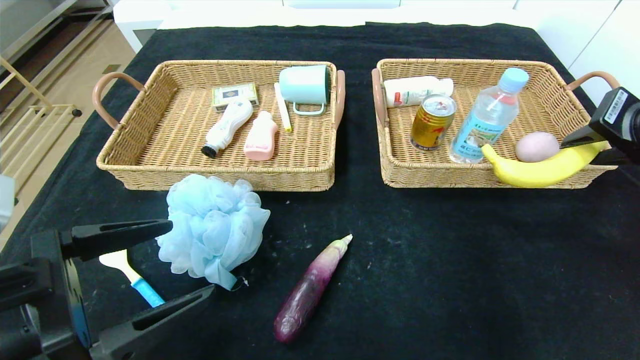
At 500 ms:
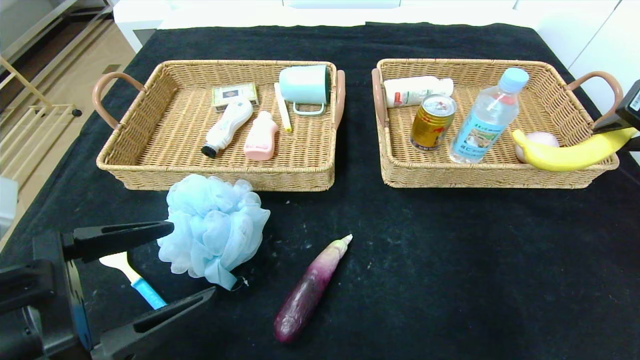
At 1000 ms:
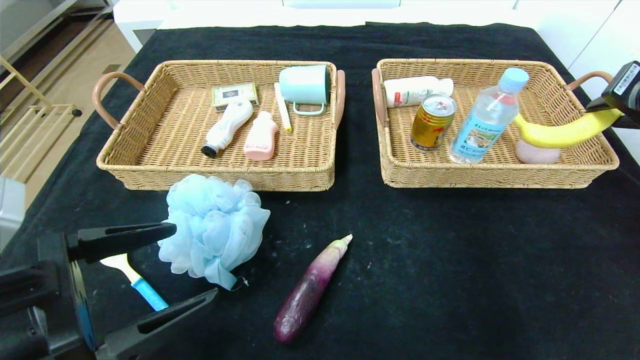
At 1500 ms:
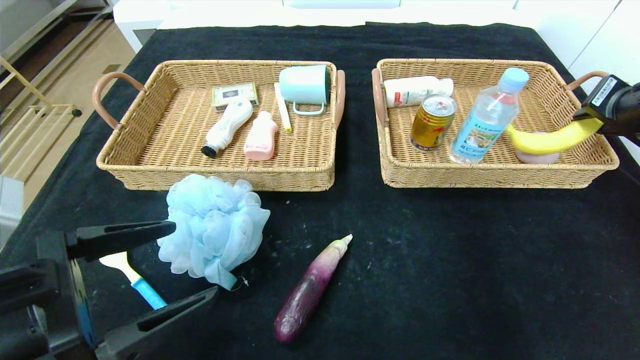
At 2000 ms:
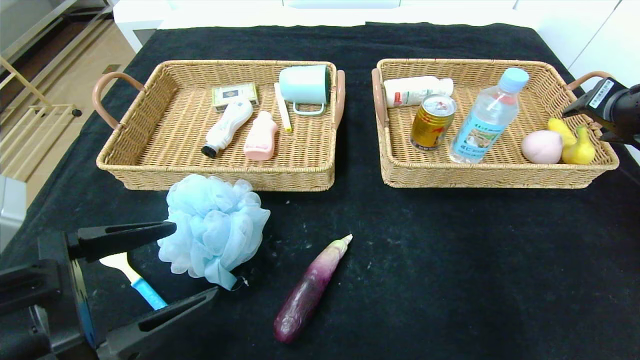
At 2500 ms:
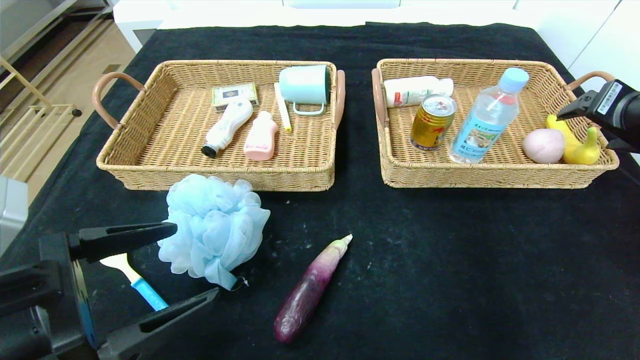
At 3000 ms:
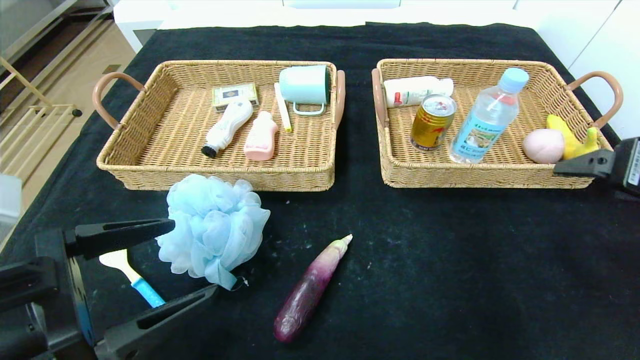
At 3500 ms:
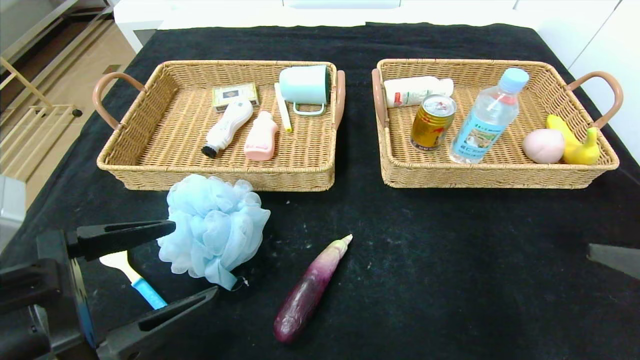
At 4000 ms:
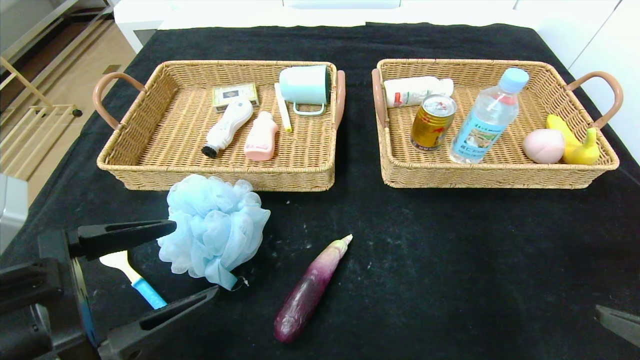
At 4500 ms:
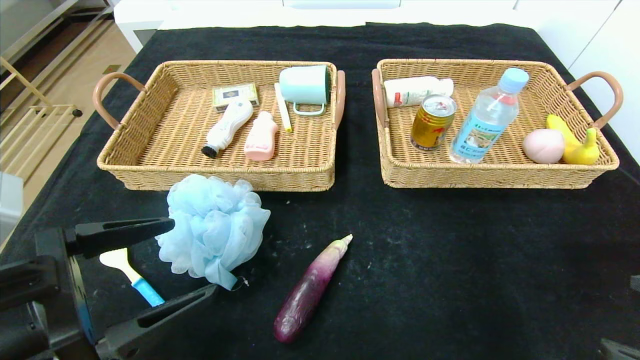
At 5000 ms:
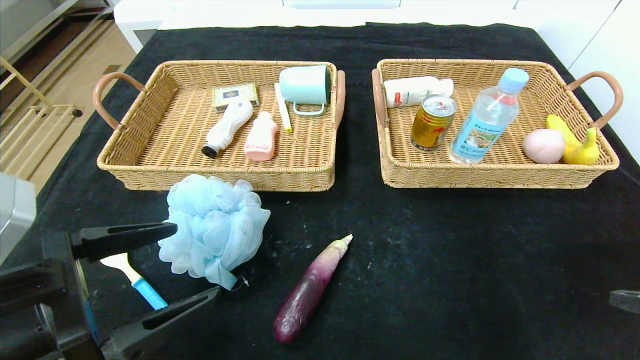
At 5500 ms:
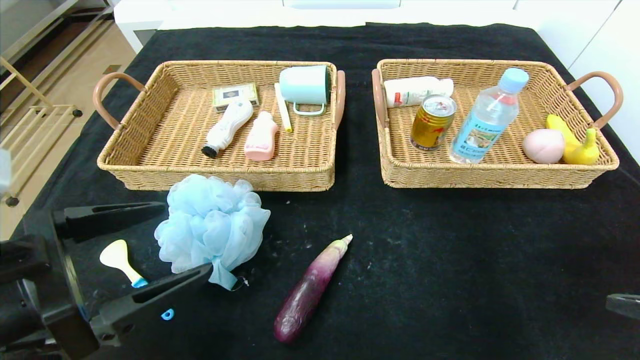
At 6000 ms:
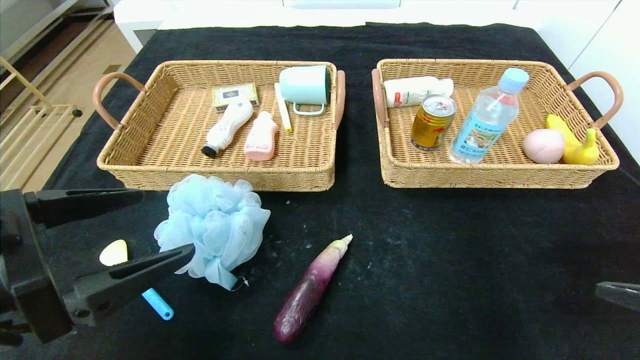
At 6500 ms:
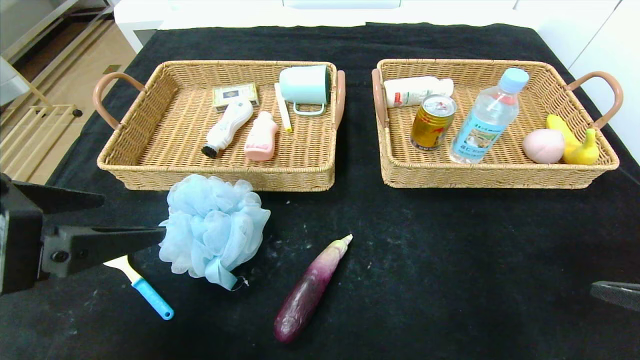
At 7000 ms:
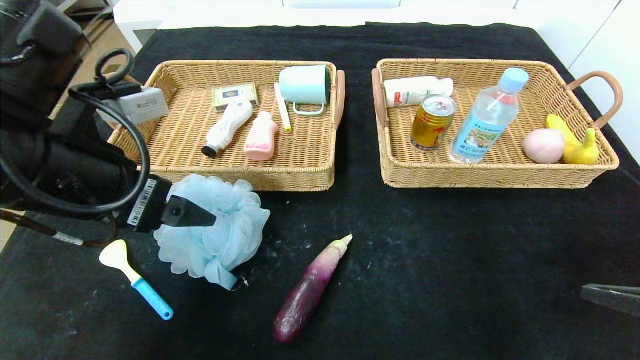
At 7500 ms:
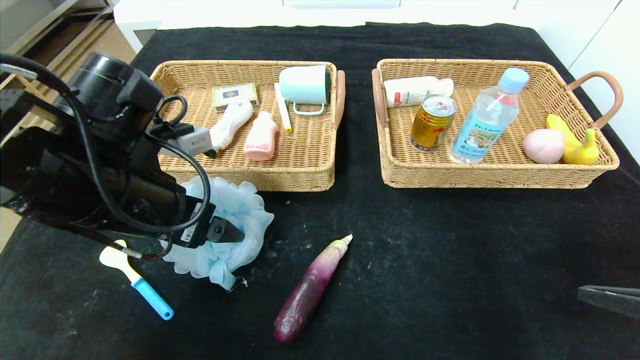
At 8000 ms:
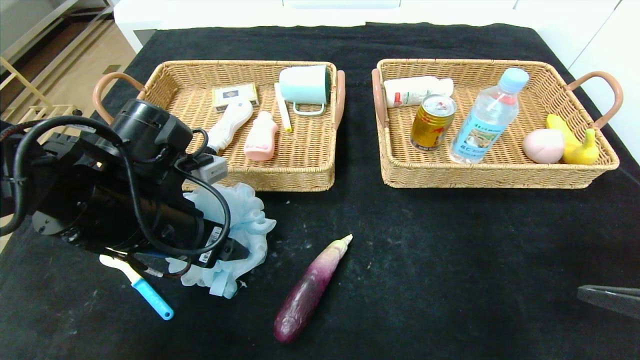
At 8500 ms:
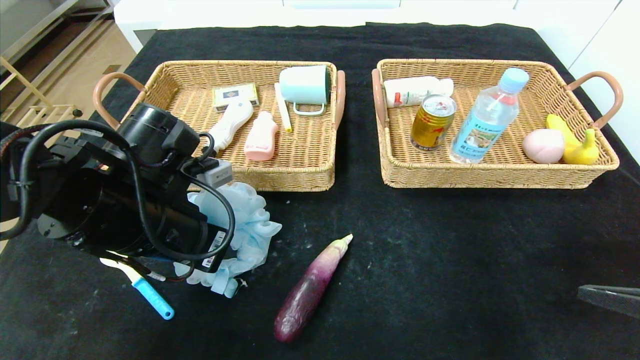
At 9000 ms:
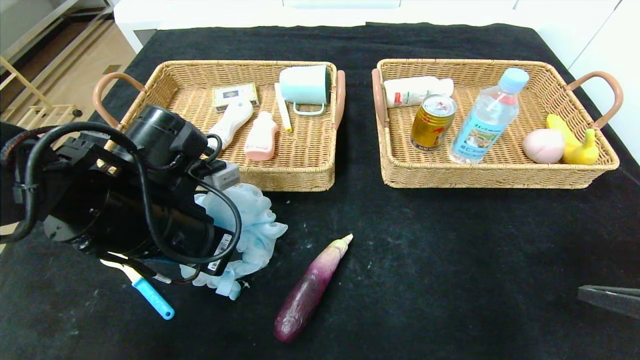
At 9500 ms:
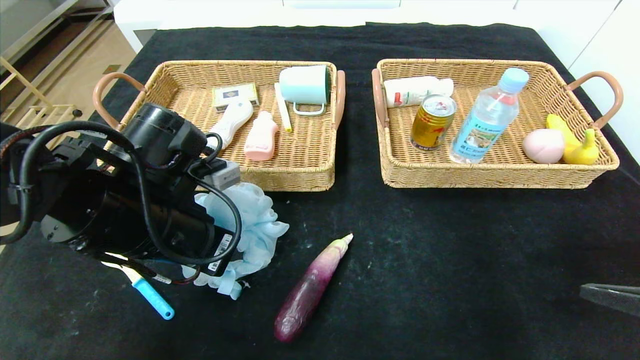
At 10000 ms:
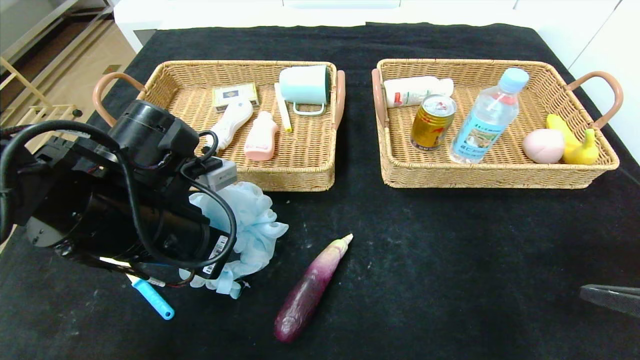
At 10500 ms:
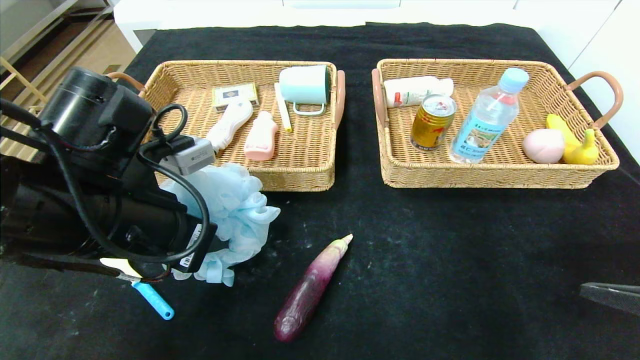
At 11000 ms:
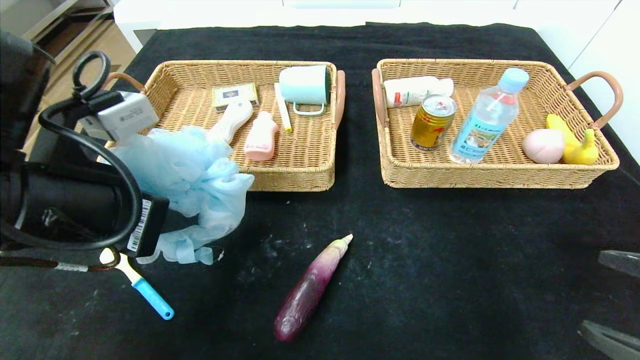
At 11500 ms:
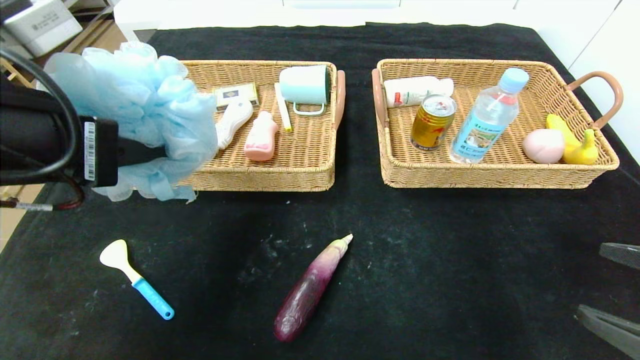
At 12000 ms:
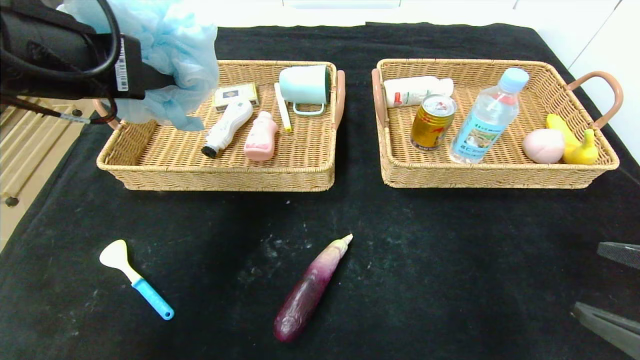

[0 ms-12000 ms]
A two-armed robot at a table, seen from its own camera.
0 ms to 2000 ms: The right gripper heads forward and to the right, covering roughly 10 cm, and opens its fingers.
2000 ms to 4000 ms: The right gripper goes roughly 25 cm backward, and opens its fingers.
6000 ms to 8000 ms: The left gripper heads forward, covering about 15 cm.
8000 ms to 10000 ms: The left gripper closes up.
10000 ms to 12000 ms: The left gripper is displaced upward by roughly 15 cm.

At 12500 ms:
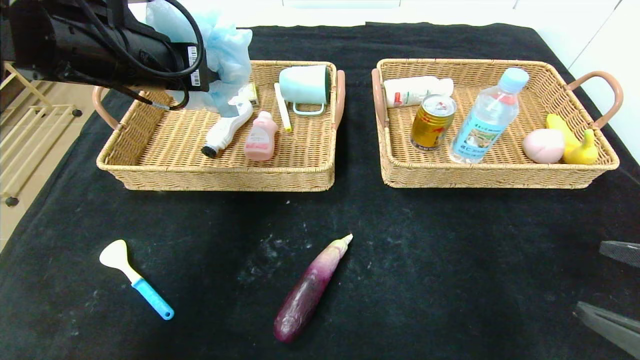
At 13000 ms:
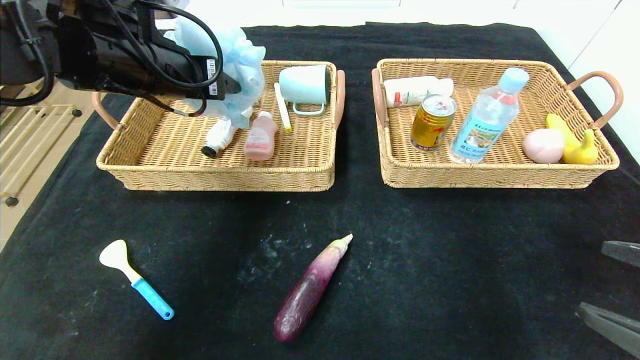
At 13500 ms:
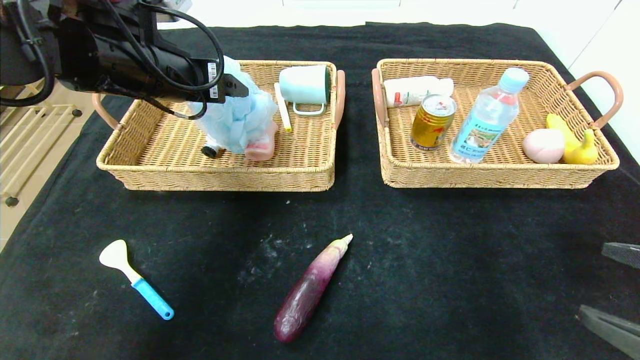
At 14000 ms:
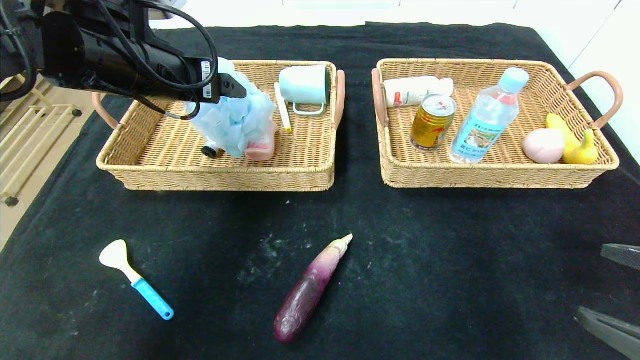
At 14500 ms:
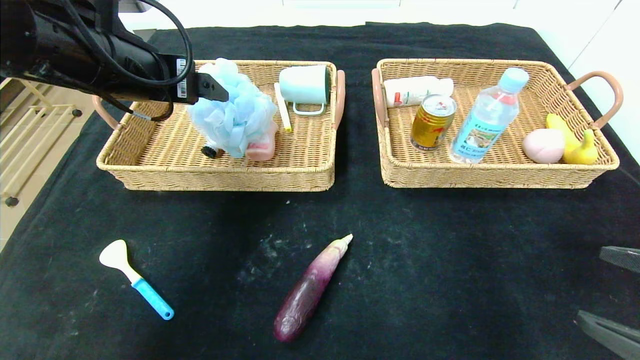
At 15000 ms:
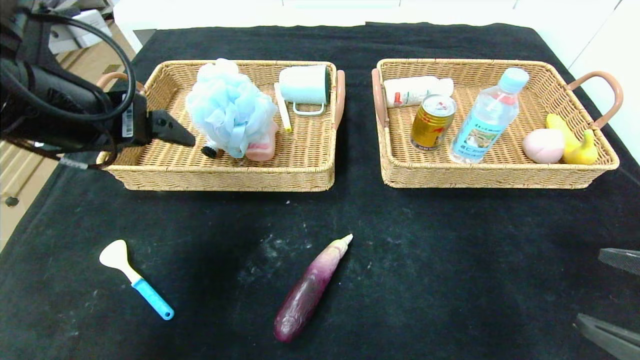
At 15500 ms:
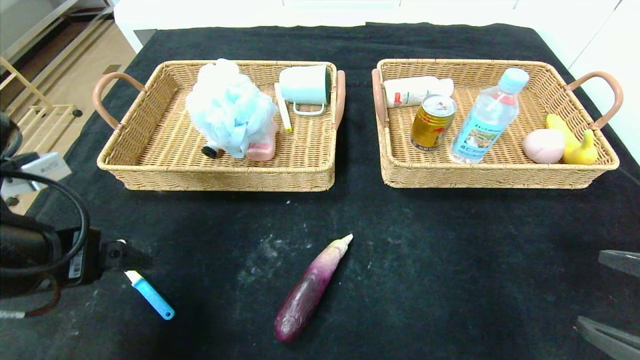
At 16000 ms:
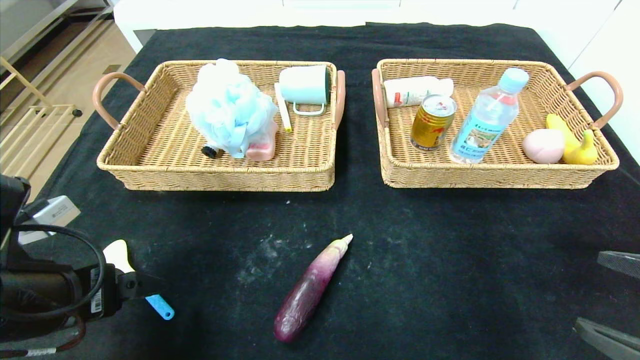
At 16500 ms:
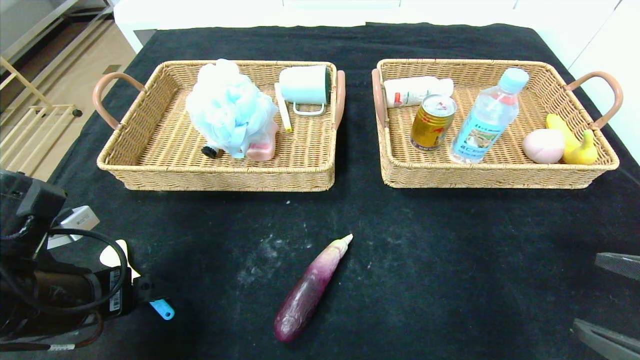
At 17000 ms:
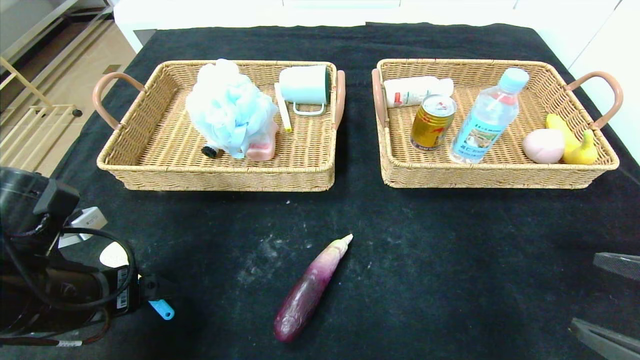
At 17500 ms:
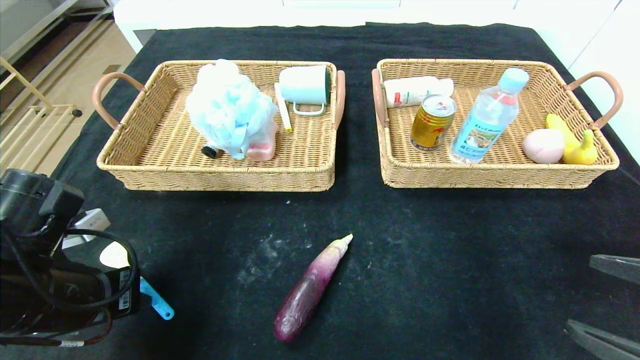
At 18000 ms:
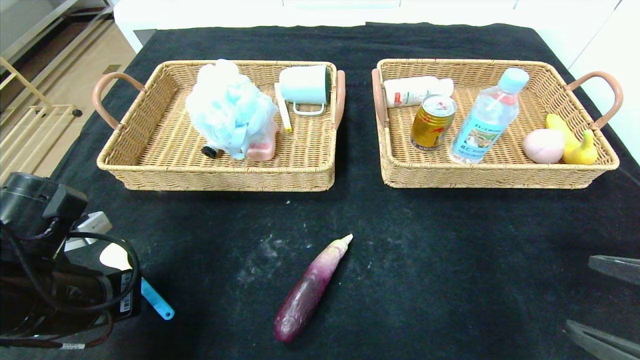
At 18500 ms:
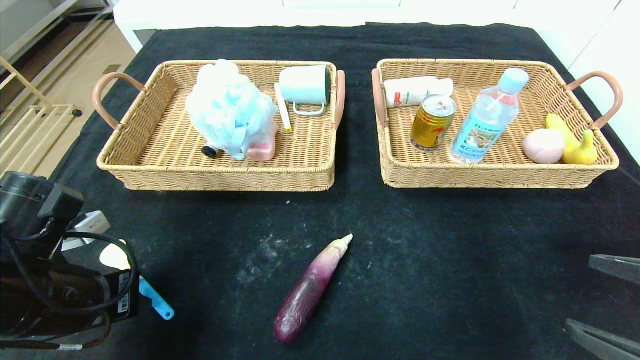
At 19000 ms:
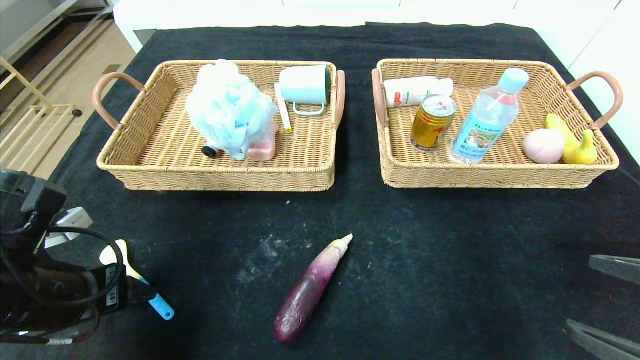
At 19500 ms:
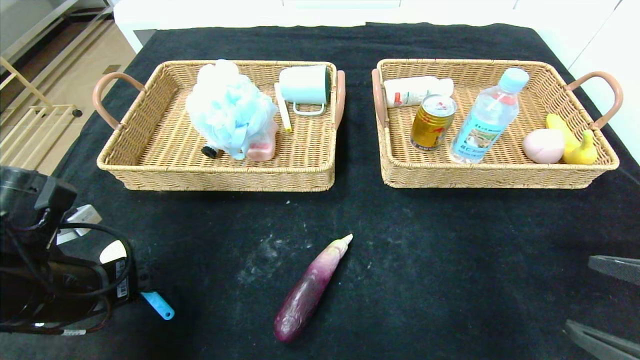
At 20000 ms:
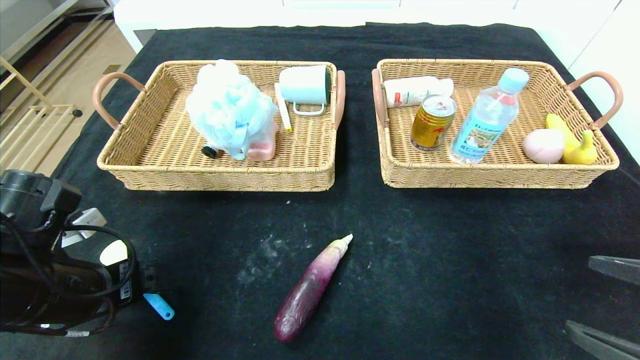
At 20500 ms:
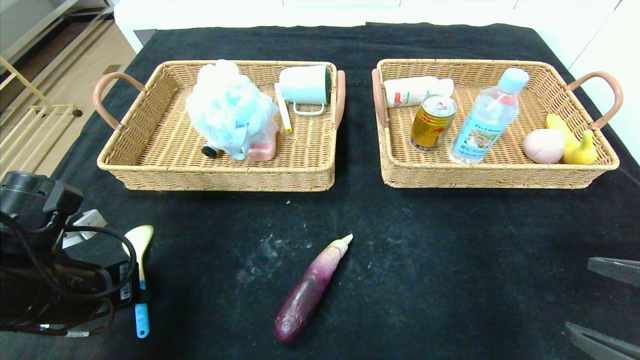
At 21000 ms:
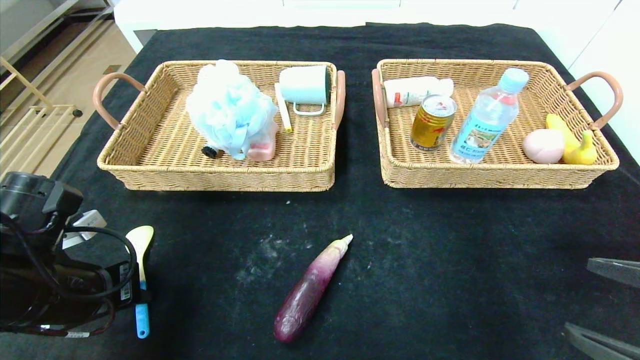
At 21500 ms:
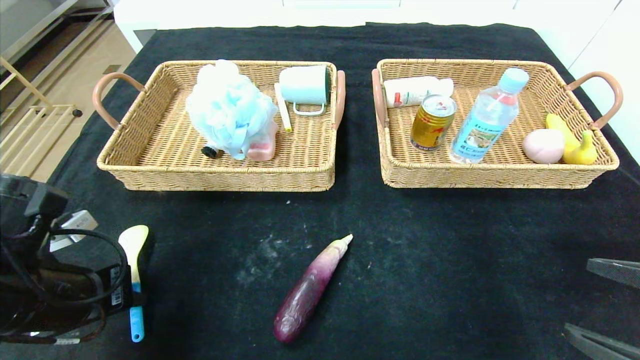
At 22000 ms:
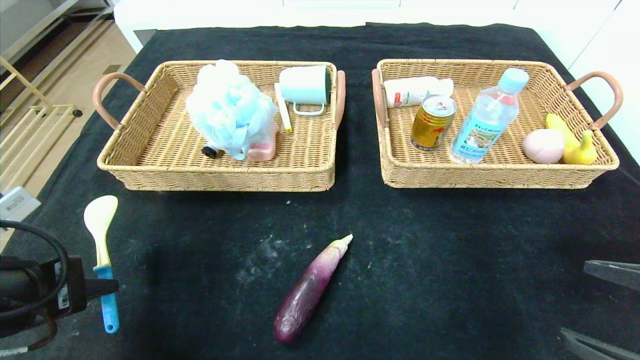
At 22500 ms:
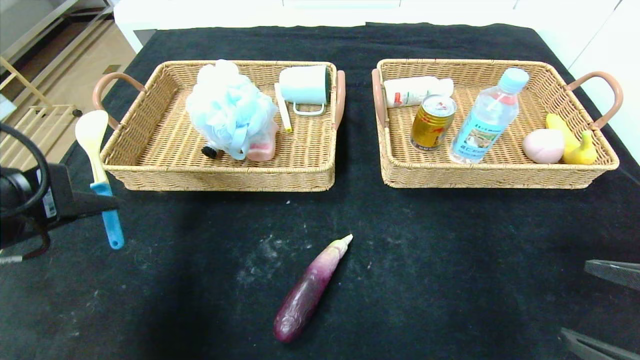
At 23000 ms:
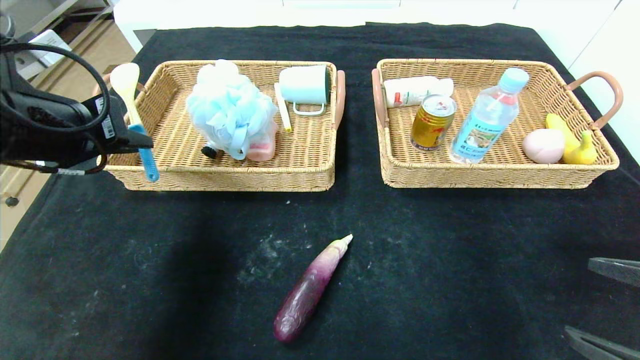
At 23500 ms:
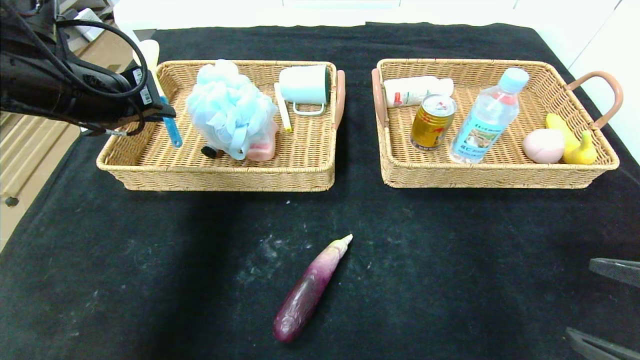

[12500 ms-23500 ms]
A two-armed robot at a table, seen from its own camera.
12500 ms to 14500 ms: The left gripper opens up.
14500 ms to 16000 ms: The left gripper is displaced downward and backward by roughly 20 cm.
16000 ms to 18000 ms: The left gripper closes its fingers.
18000 ms to 20000 ms: The left gripper opens.
20000 ms to 21500 ms: The left gripper closes its fingers.
21500 ms to 23500 ms: The left gripper travels upward and forward by some 20 cm.
